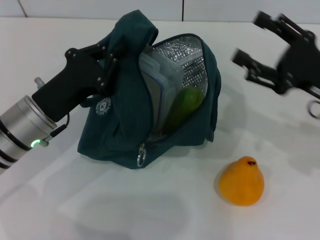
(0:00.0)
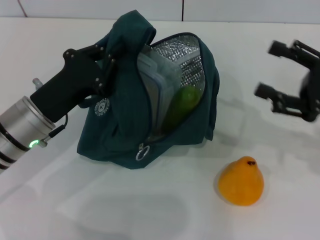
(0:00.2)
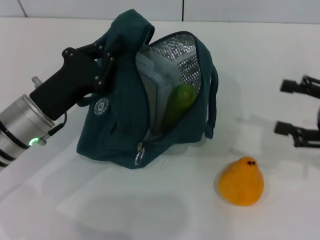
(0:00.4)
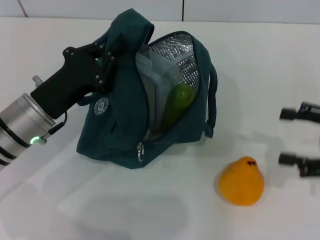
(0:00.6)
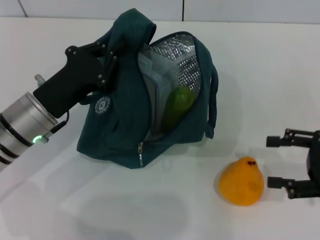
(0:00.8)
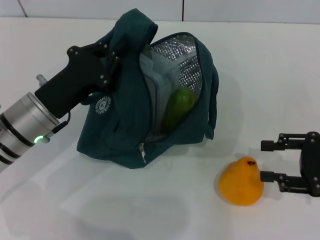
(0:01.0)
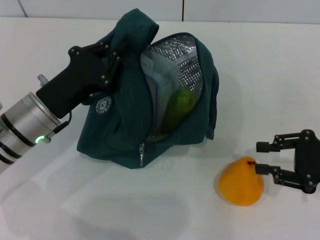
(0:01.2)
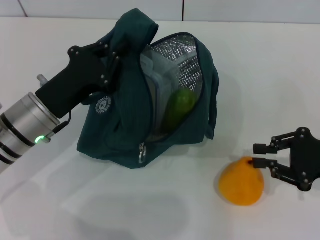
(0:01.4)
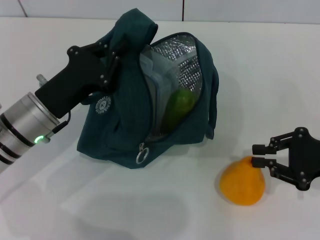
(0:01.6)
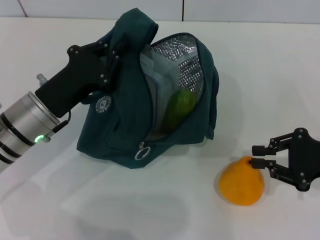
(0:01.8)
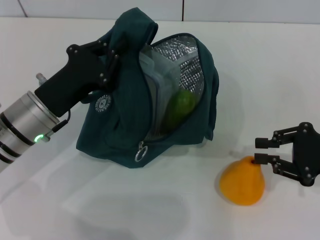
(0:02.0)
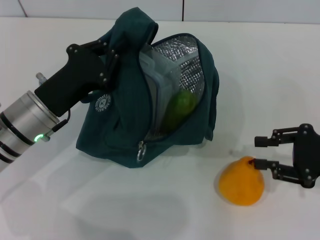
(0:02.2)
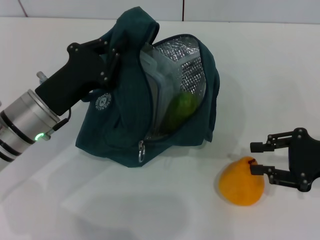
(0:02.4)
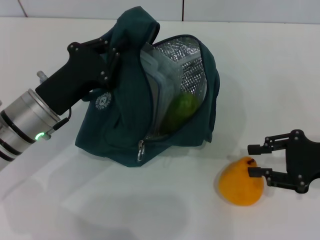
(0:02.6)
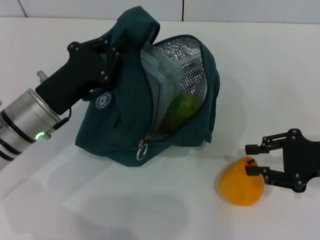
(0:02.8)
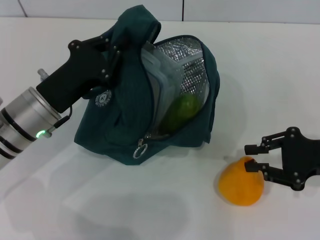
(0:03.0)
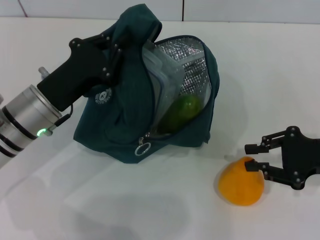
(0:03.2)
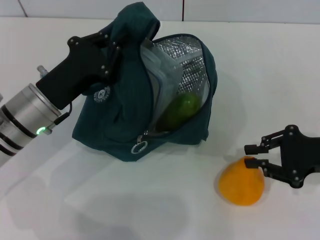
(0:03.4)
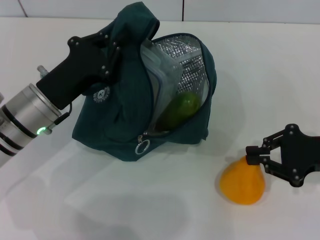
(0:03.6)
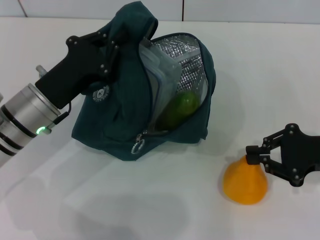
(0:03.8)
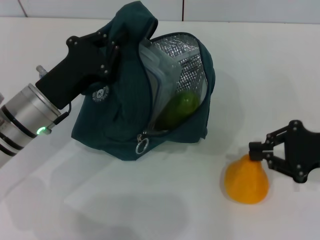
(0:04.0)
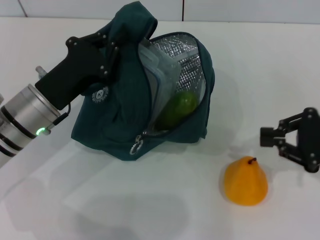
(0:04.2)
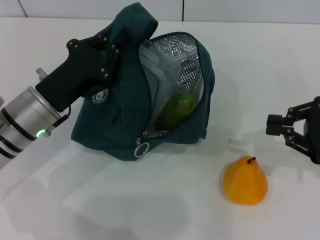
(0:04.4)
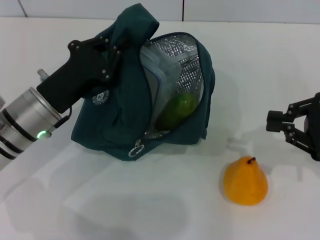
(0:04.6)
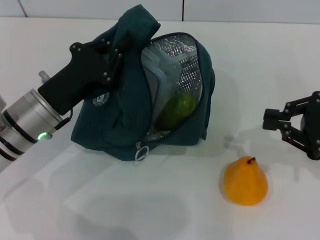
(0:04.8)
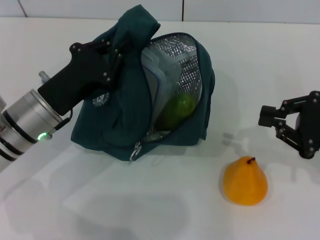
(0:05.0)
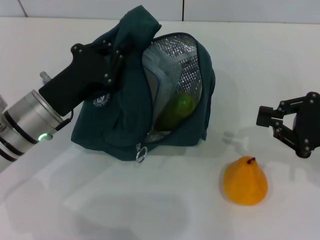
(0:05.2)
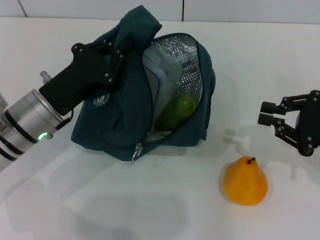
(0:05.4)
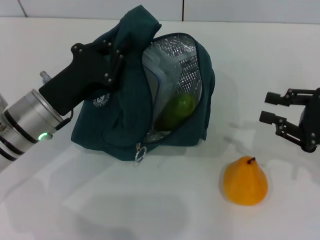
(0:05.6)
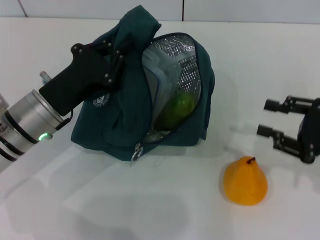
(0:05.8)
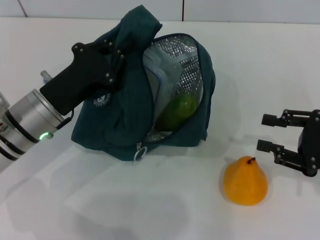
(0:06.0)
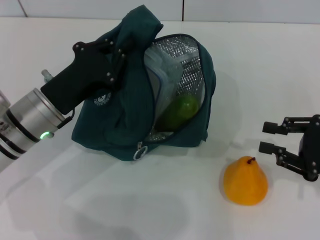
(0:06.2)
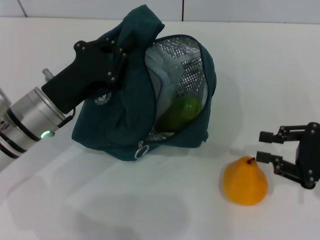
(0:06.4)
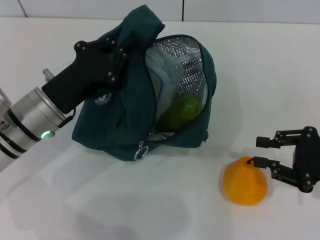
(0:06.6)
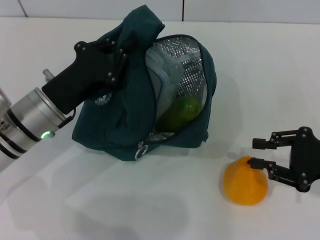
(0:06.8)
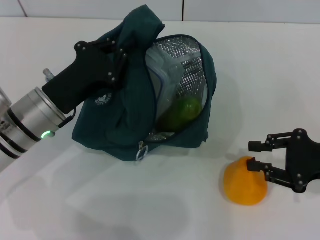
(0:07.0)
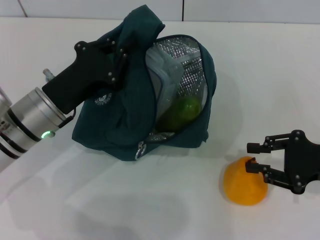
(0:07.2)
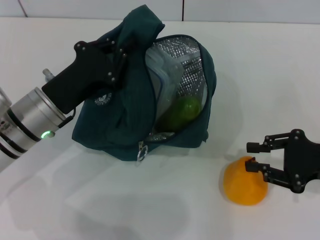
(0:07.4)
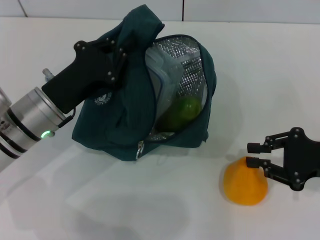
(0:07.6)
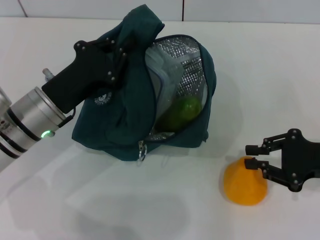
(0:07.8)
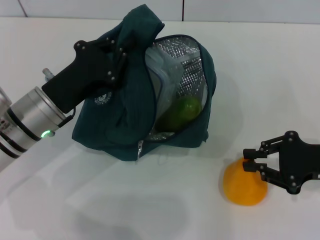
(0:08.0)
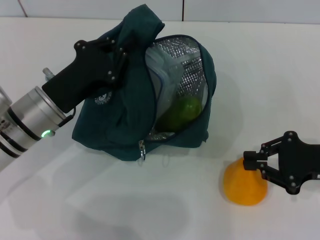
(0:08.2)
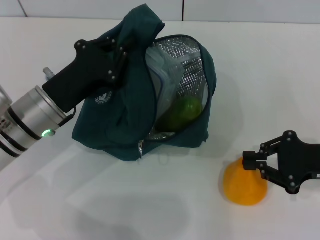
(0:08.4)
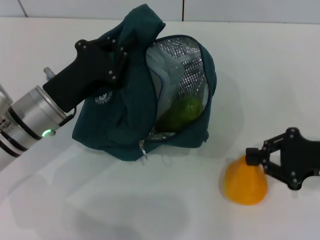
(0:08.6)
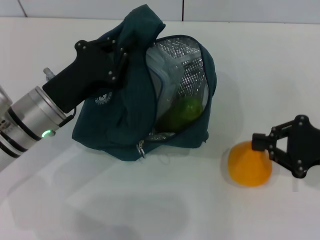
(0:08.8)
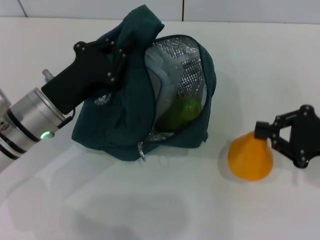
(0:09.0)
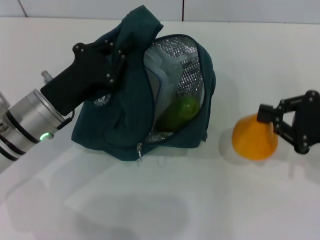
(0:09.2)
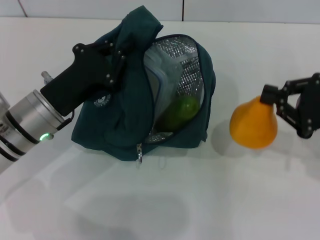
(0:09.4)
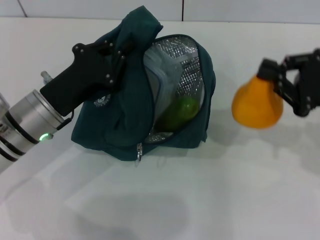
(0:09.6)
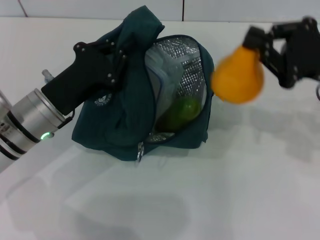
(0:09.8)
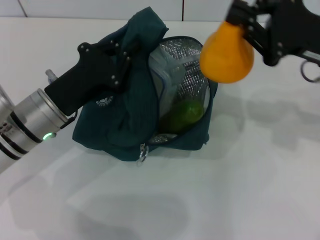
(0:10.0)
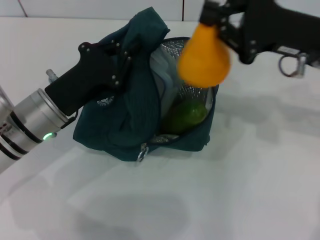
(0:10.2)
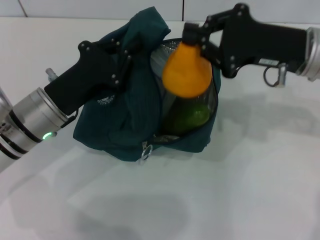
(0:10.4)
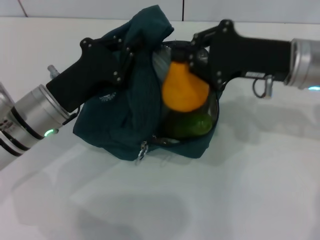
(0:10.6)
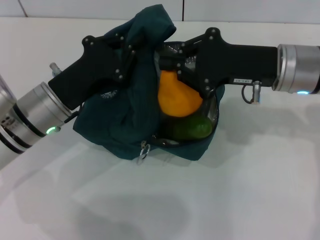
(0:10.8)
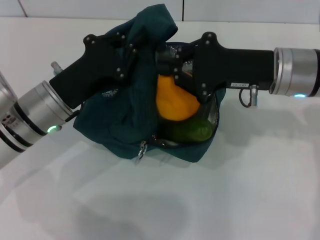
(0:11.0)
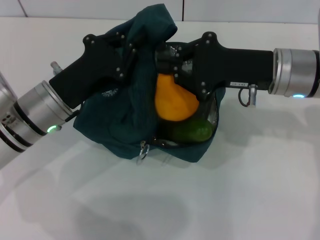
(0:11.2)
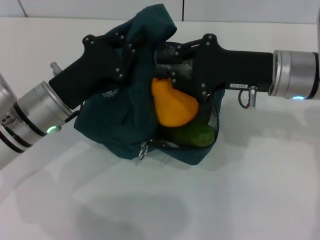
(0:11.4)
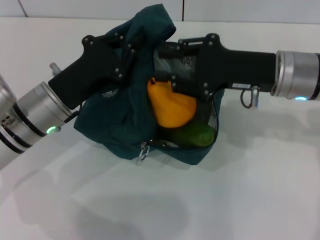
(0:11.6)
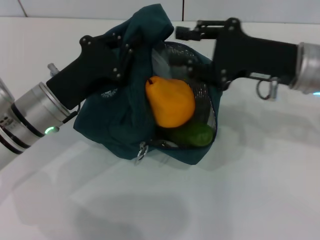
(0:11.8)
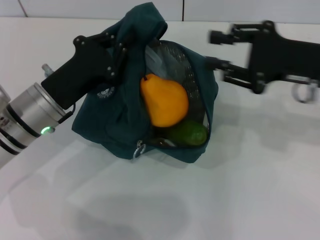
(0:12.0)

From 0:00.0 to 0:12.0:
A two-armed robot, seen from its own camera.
Step, from 0:00.0 to 0:08.4: Grab the pear with your right hand.
From 0:00.0 to 0:01.6: The right gripper ends up approximately 5 cm from where it was, and closes.
From 0:01.6 to 0:03.0: Neither gripper changes place.
From 0:03.0 to 0:04.4: The grippers stay close to where they were, moving slightly.
From 0:04.4 to 0:06.0: The right gripper opens.
From 0:06.0 to 0:09.0: The grippers make only small movements.
From 0:09.0 to 0:10.4: The right gripper goes roughly 15 cm to the left, upward and forward.
From 0:10.4 to 0:12.0: The right gripper opens up.

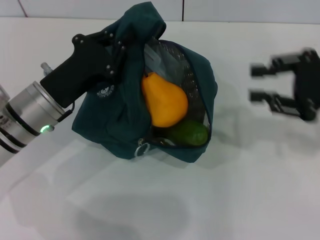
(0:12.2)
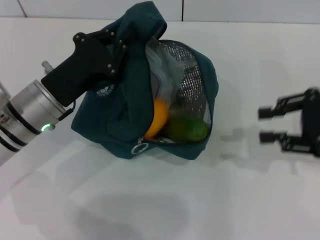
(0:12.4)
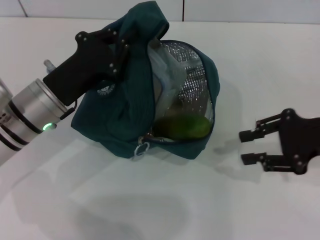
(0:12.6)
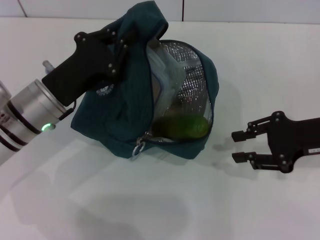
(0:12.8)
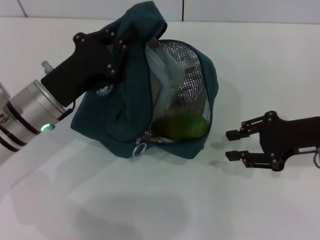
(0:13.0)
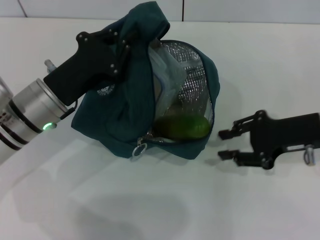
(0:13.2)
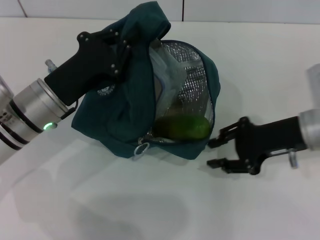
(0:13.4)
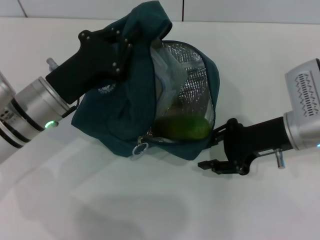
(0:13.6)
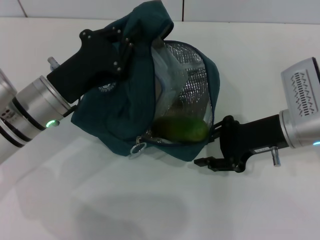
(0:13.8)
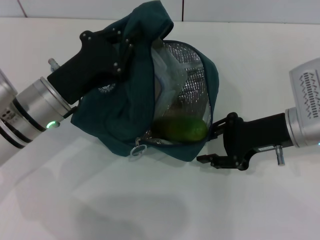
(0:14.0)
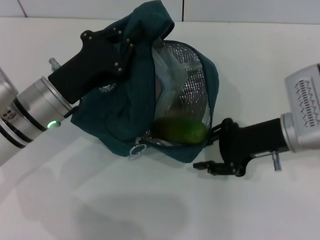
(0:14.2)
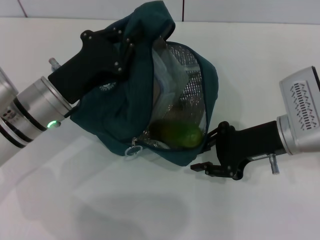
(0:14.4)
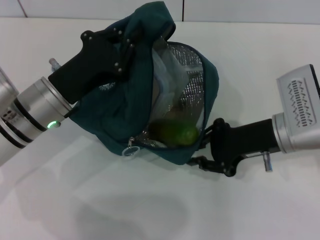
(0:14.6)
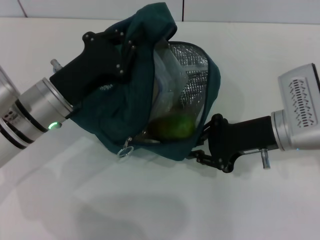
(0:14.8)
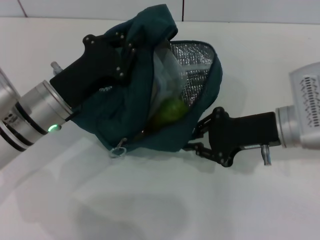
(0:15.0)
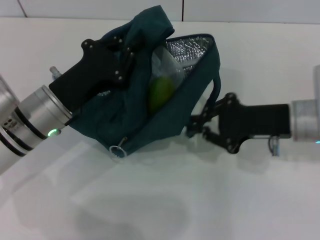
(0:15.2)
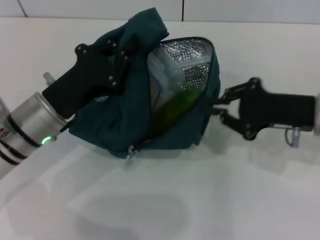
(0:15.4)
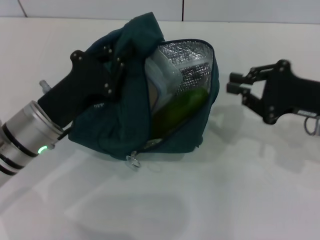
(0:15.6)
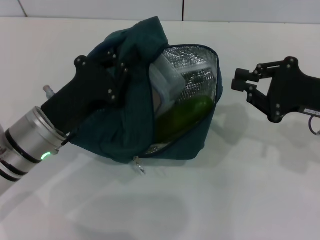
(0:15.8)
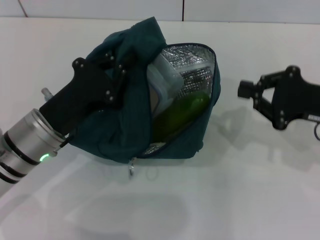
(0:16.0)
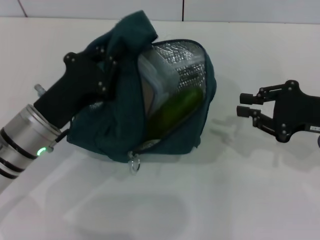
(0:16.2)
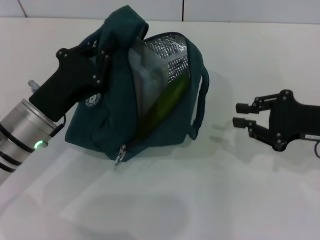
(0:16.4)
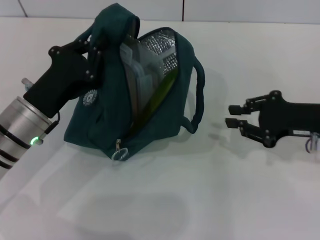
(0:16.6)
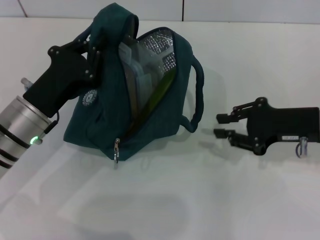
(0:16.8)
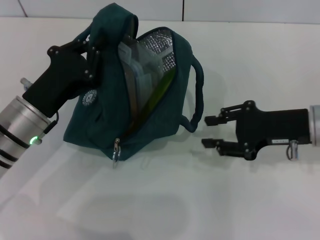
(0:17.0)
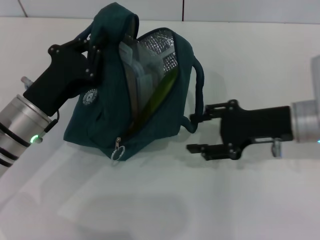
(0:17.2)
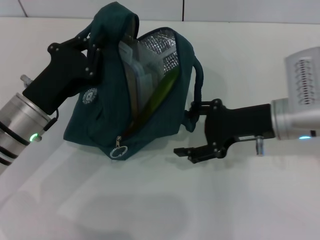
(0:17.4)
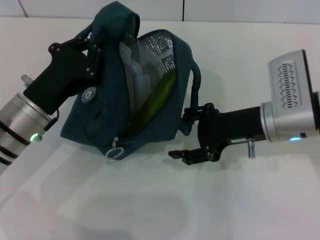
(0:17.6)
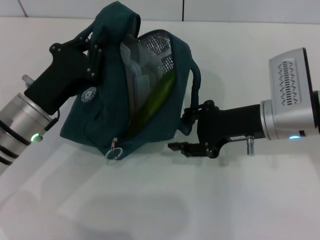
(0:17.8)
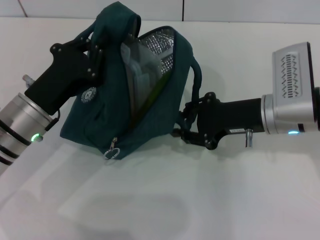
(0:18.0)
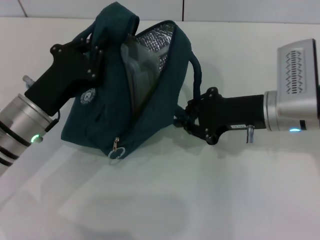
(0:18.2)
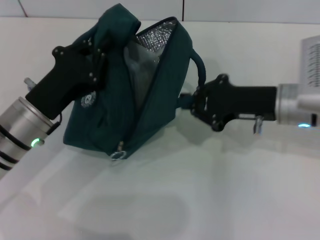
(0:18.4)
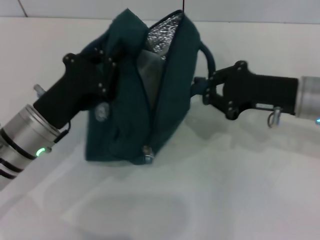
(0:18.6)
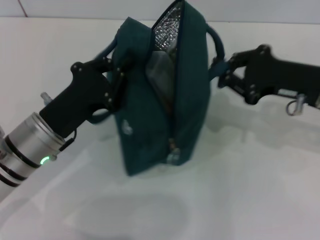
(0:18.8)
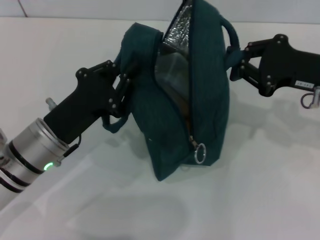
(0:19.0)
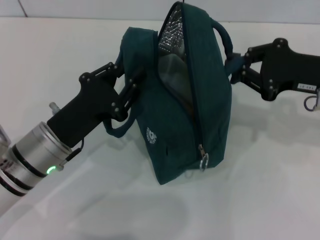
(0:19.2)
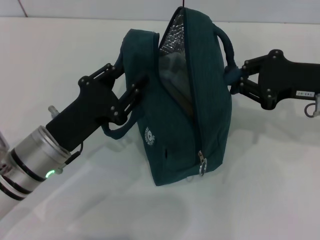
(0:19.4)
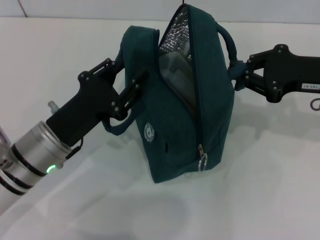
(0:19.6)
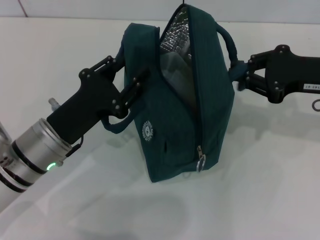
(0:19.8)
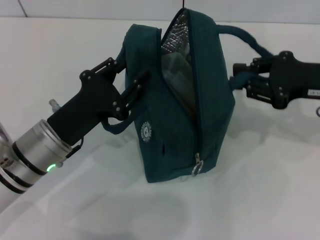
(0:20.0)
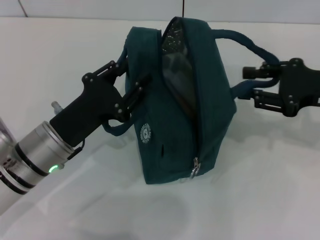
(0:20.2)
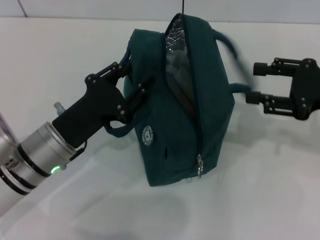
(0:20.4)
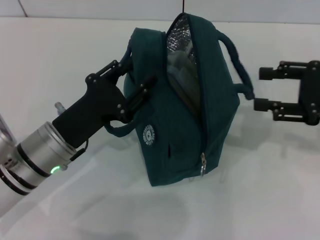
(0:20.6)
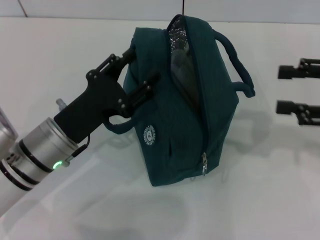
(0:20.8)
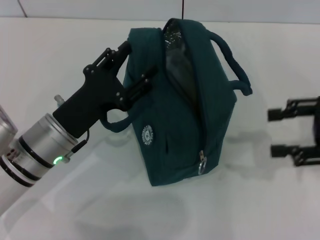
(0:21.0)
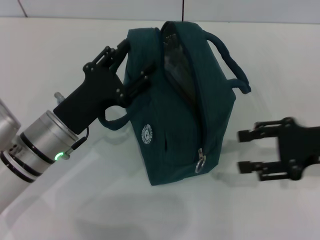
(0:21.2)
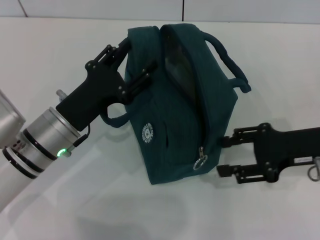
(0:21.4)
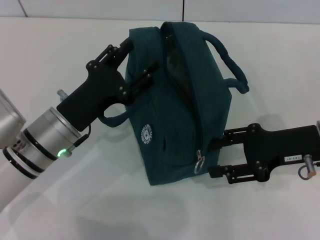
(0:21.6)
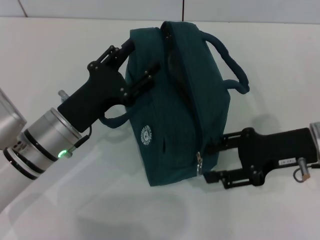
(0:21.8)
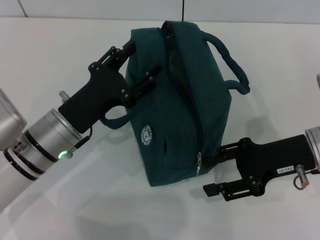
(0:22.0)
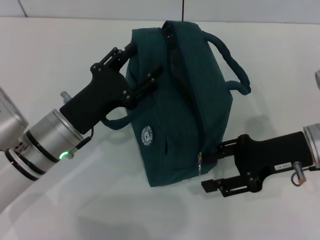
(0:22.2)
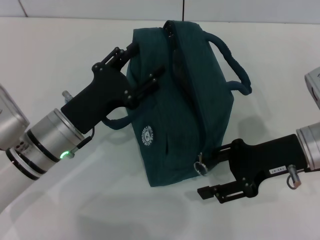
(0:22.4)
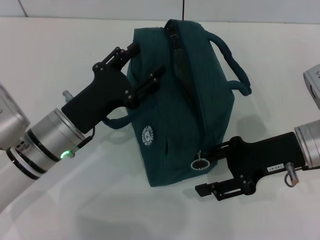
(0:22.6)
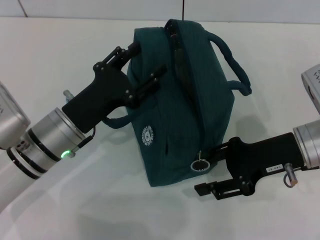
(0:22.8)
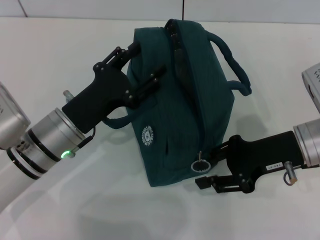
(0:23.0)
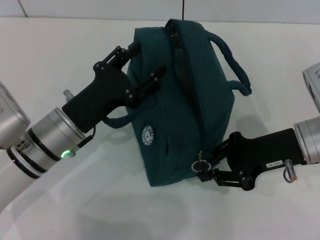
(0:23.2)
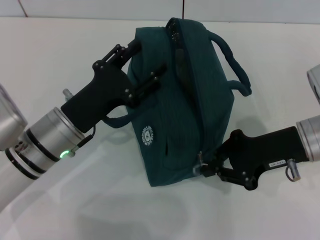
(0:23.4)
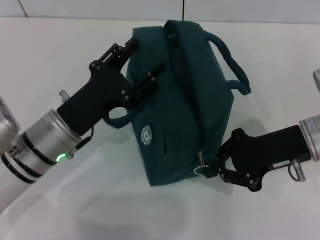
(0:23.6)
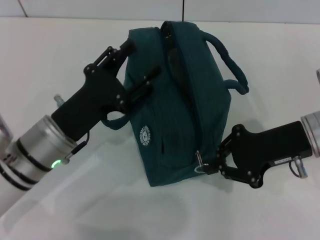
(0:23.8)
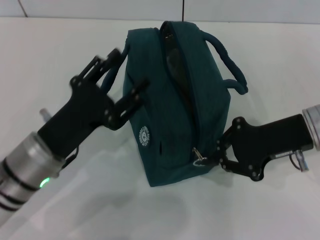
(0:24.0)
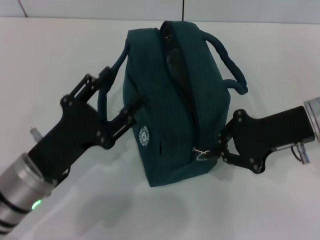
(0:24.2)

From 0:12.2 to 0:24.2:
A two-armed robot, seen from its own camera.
Step, from 0:12.2 to 0:20.2: Hold the lunch bag with your right hand.
Step, from 0:20.4 to 0:23.8: Hold the lunch bag with your left hand.
From 0:12.2 to 0:13.8: The right gripper shifts roughly 10 cm to the left and downward.
From 0:15.2 to 0:16.6: The right gripper goes about 5 cm to the right.
From 0:16.6 to 0:18.2: The right gripper goes some 10 cm to the left, and opens, then closes once more.
From 0:18.2 to 0:19.8: The right gripper shifts about 10 cm to the right; the left gripper opens its fingers.
From 0:19.8 to 0:21.2: The right gripper is displaced backward by about 5 cm, and opens up. The left gripper opens its fingers.
From 0:21.2 to 0:22.6: The right gripper travels to the left by roughly 5 cm.
From 0:22.6 to 0:24.2: The right gripper closes up. Meanwhile the left gripper heads backward, covering some 5 cm.
